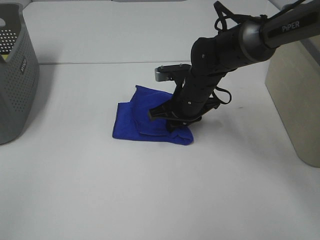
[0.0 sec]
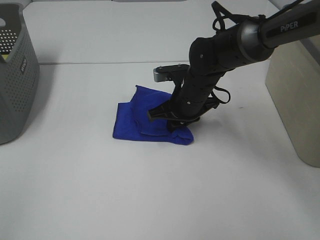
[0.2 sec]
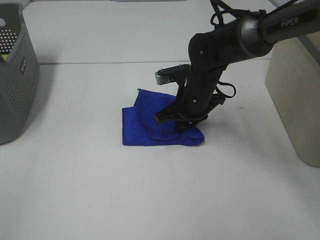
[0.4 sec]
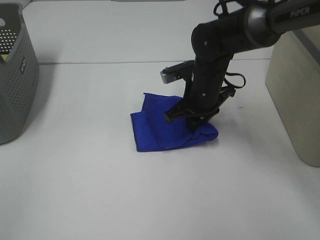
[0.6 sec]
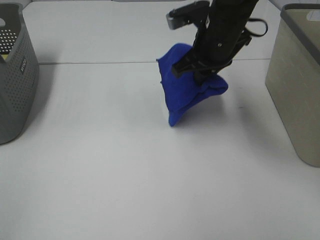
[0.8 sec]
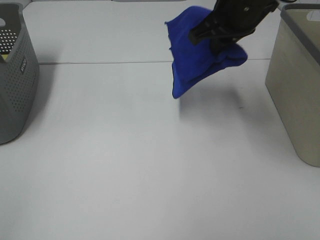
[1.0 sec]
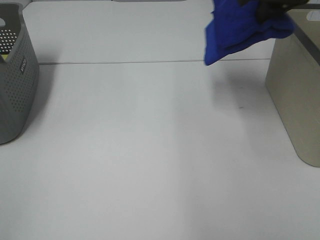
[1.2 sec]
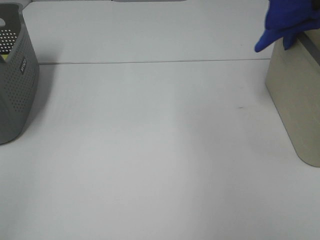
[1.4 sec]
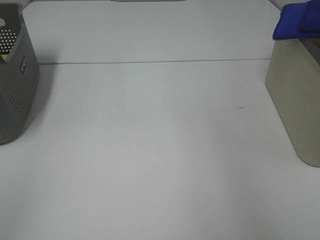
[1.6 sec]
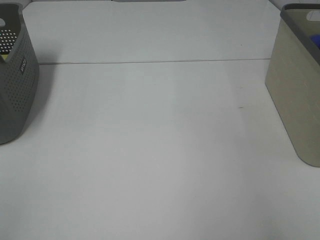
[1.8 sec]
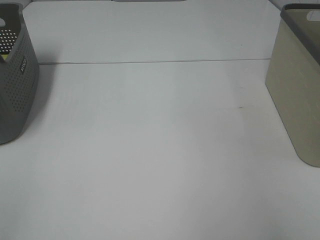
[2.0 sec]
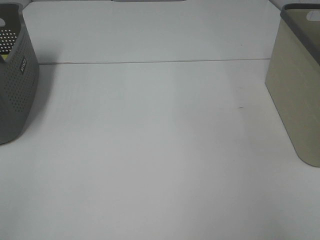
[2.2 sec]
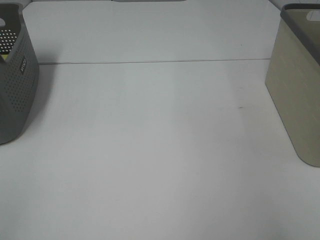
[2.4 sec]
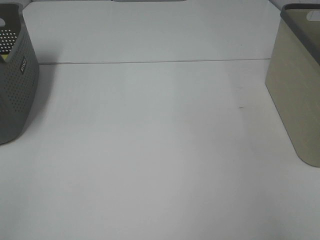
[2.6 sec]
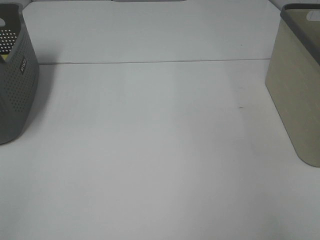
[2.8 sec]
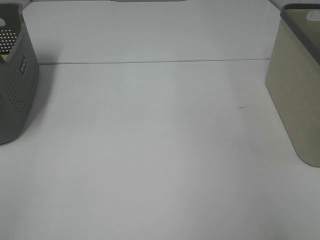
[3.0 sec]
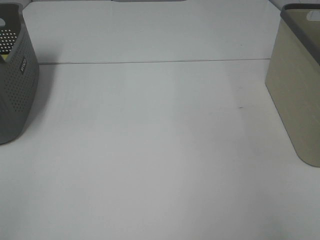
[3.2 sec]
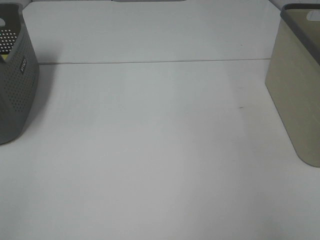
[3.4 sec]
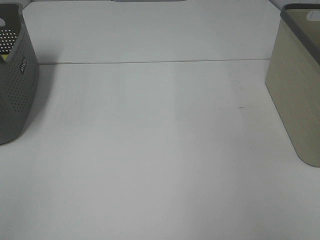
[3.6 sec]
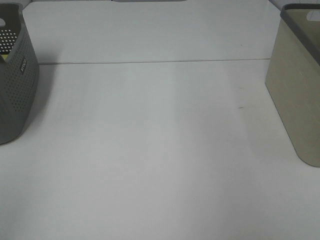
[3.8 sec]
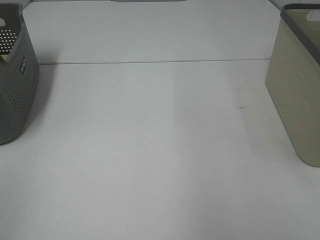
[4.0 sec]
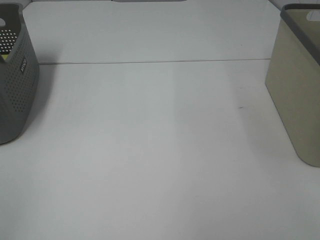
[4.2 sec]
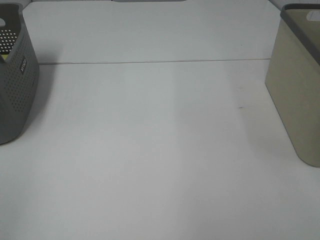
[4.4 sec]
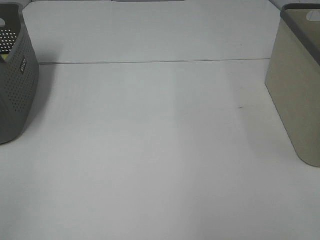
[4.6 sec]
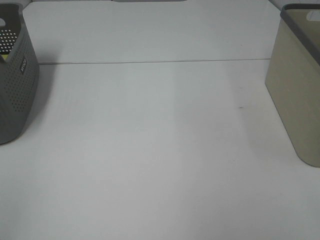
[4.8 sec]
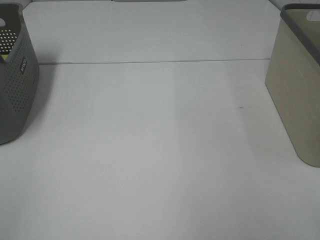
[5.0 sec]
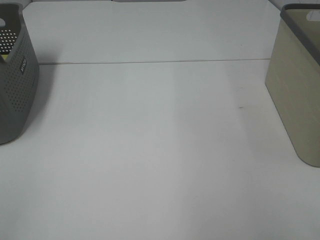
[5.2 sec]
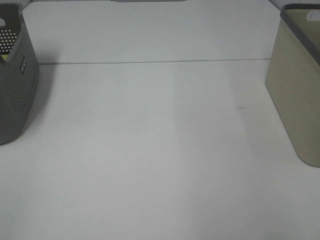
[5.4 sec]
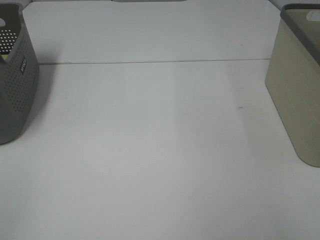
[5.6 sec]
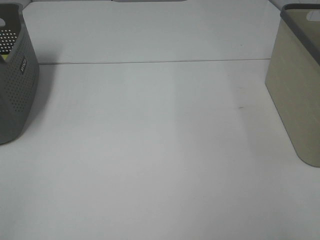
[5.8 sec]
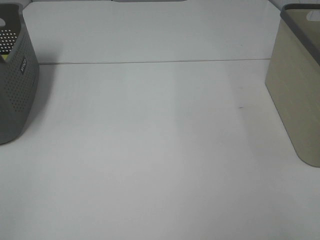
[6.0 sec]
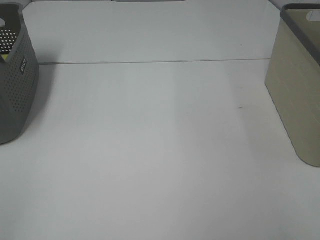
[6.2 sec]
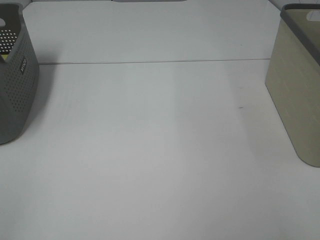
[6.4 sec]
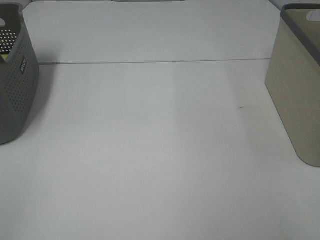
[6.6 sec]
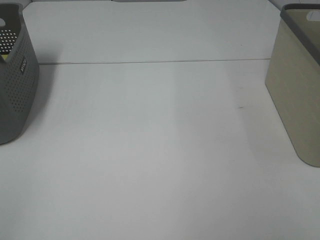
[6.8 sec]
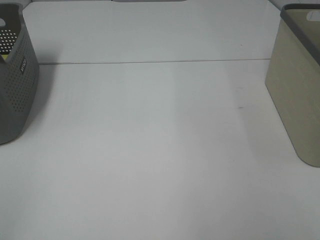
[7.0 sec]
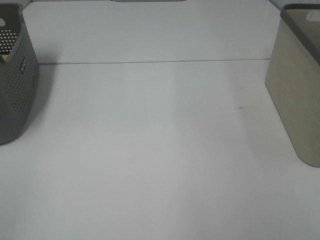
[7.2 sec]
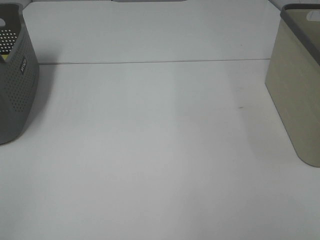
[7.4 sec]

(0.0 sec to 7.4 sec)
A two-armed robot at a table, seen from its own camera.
Step, 0.6 sec - 2.8 sec: Right hand: place the blue towel in right basket.
0.0 sec - 1.4 sec: The right gripper is displaced upward and to the right by approximately 35 cm.
1.4 sec - 3.0 sec: The right gripper moves to the right and downward, roughly 15 cm, and opens its fingers.
